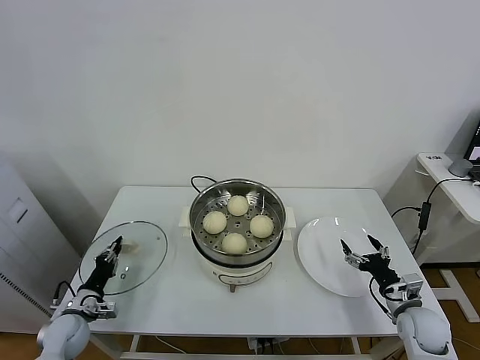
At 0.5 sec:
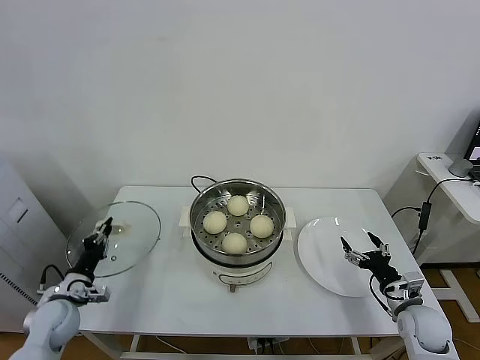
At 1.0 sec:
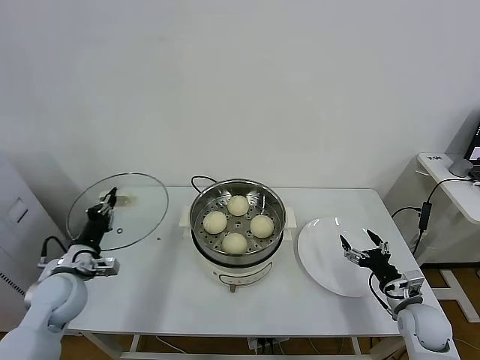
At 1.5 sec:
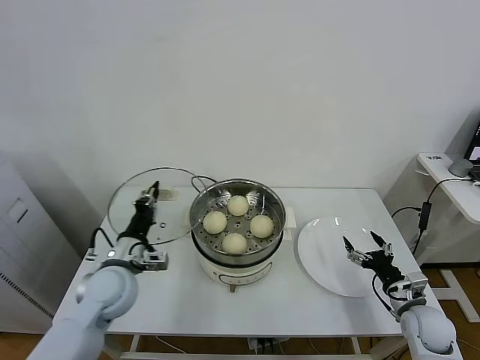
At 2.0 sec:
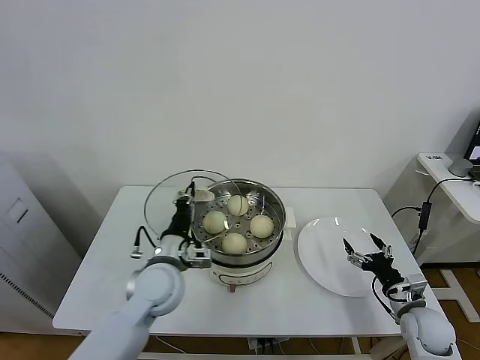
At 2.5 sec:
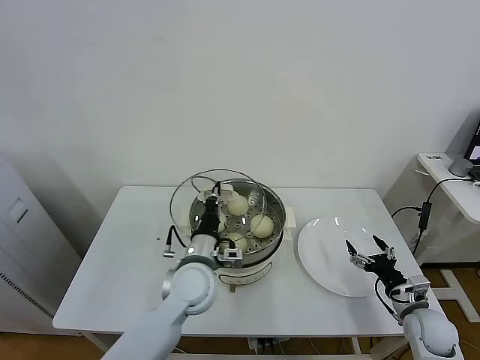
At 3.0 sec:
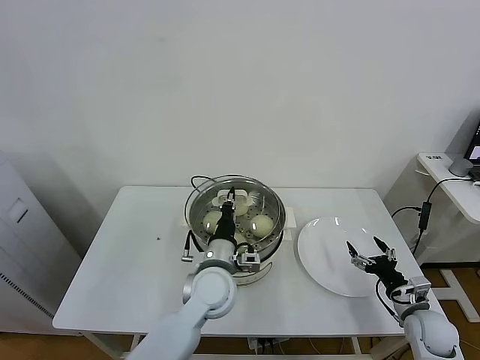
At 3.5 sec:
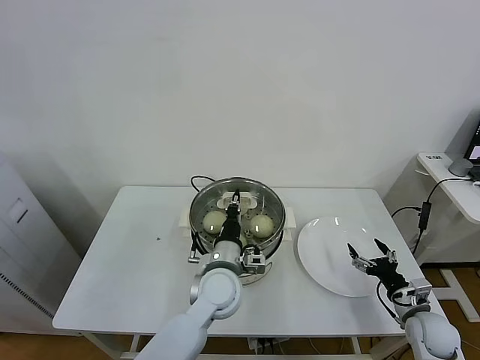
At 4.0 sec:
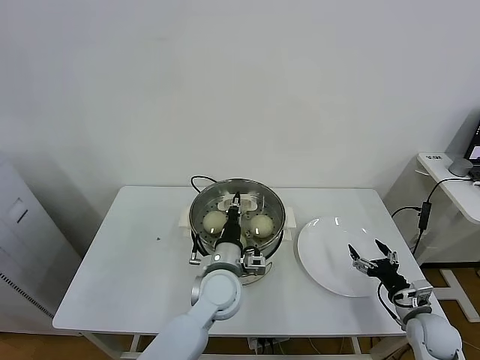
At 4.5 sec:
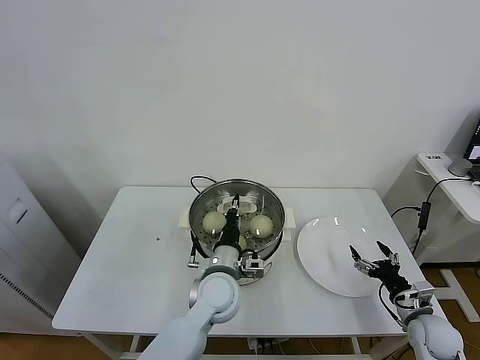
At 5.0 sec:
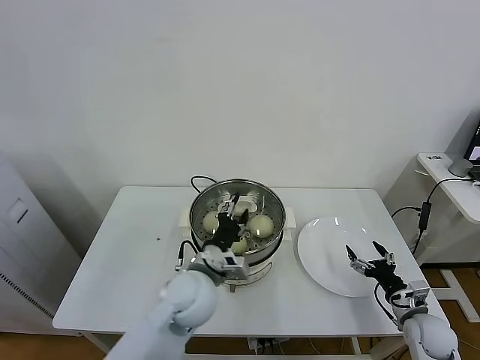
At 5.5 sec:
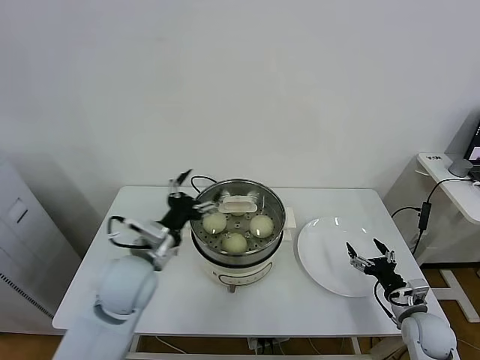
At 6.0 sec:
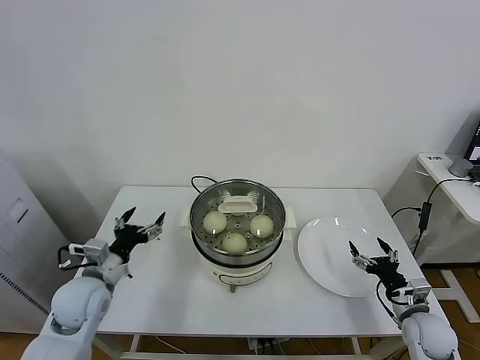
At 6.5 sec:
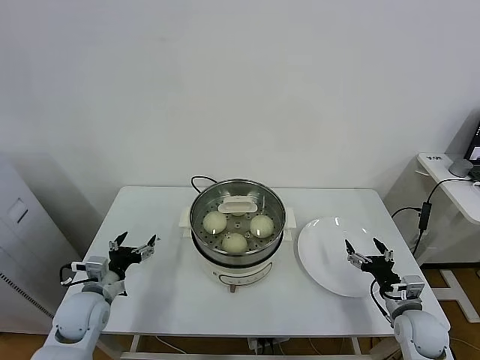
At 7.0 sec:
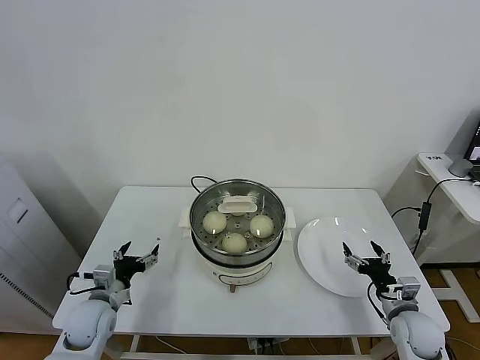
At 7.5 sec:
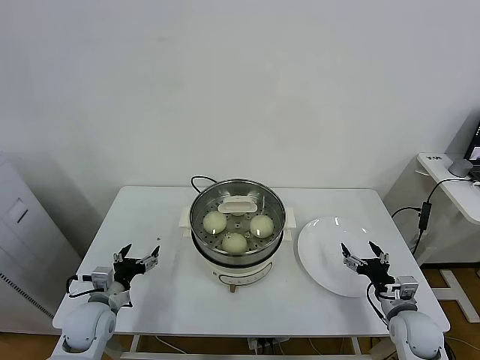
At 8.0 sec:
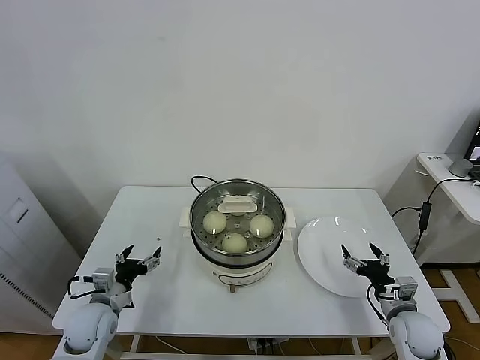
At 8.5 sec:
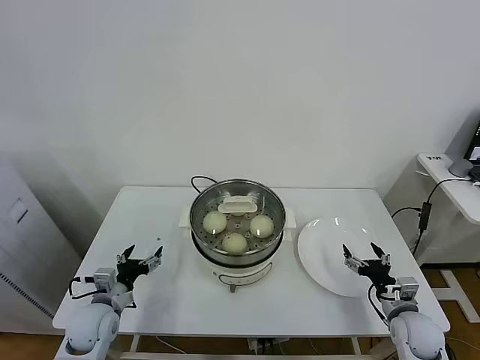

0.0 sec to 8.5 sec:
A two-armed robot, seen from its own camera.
Task of the whole recording: take steamed baozi put them in steamer.
Step, 0.5 sec to 5.0 sec: Place the pot lid on the steamer with left gripper.
0.0 sec to 2.0 sec: The left gripper moves to the right and upward, some 30 cm.
2.0 sec to 4.0 sec: The left gripper travels to the right by some 10 cm.
4.0 sec to 6.5 sec: The left gripper moves to the left, roughly 30 cm, and opens.
6.5 sec to 8.5 sec: The grippers make only small movements.
